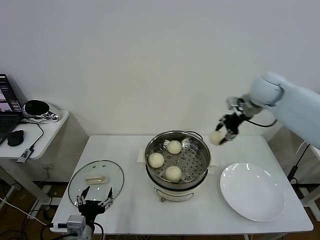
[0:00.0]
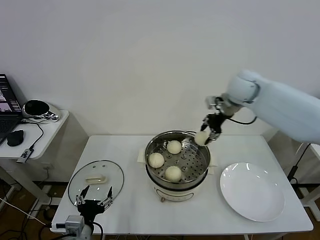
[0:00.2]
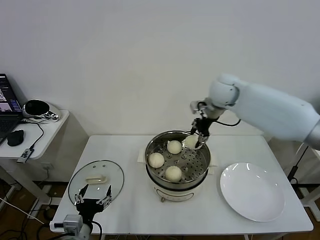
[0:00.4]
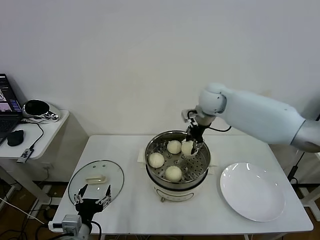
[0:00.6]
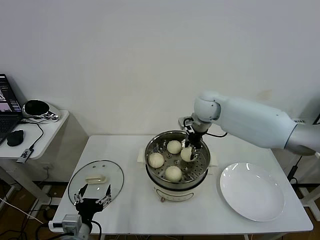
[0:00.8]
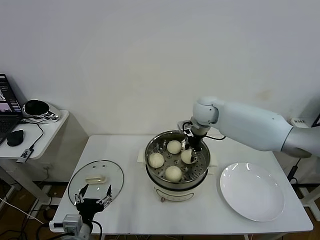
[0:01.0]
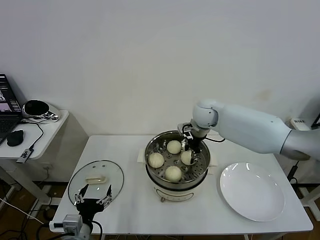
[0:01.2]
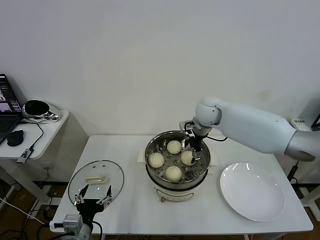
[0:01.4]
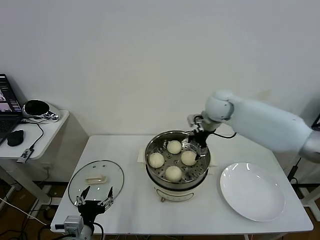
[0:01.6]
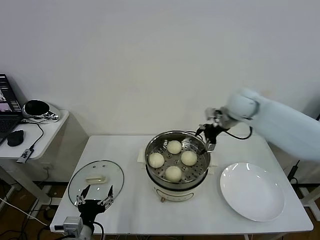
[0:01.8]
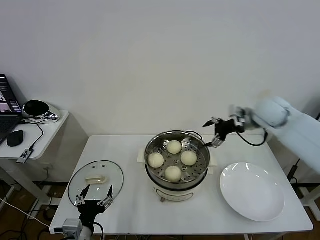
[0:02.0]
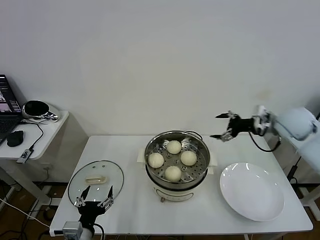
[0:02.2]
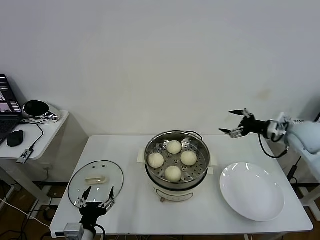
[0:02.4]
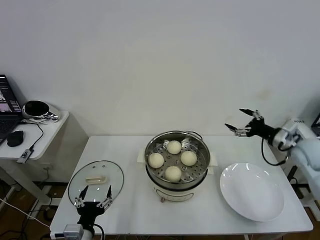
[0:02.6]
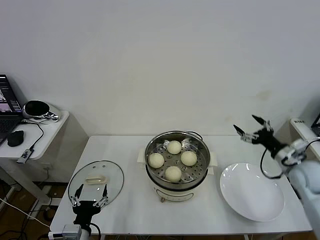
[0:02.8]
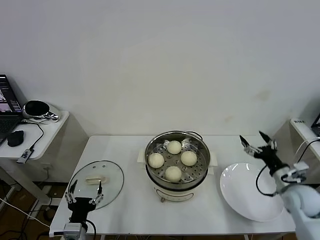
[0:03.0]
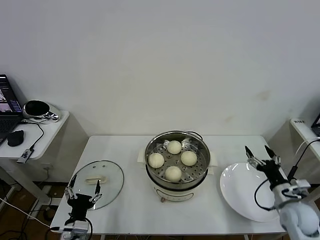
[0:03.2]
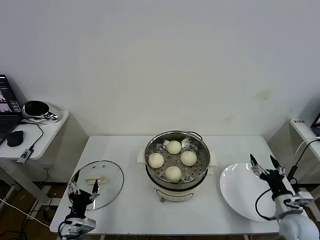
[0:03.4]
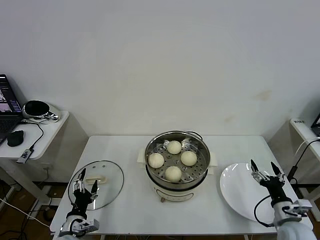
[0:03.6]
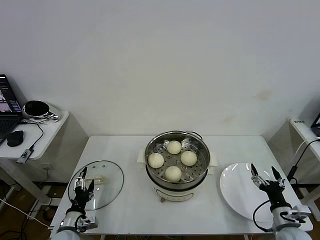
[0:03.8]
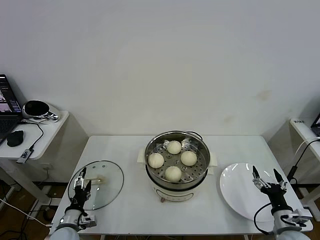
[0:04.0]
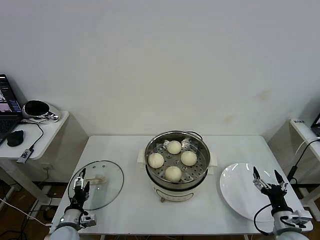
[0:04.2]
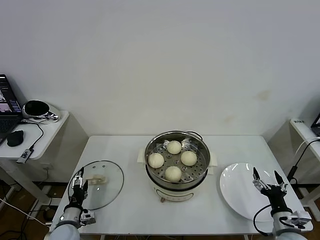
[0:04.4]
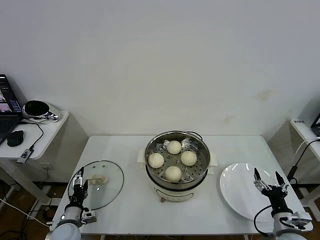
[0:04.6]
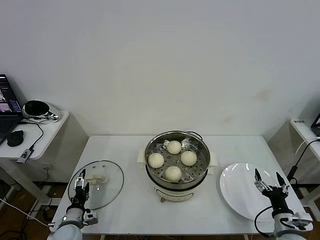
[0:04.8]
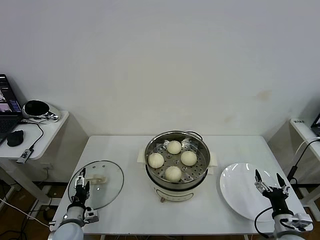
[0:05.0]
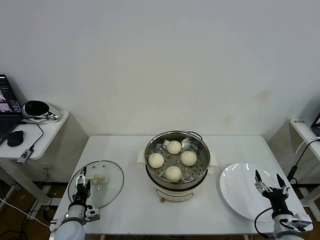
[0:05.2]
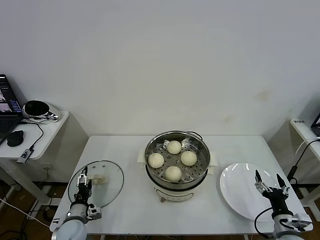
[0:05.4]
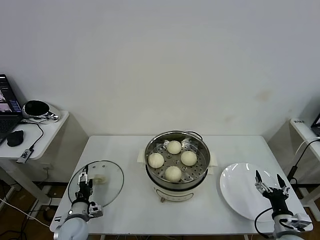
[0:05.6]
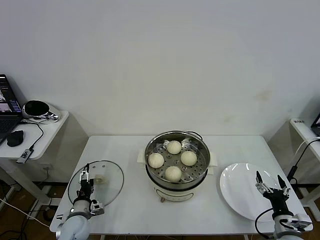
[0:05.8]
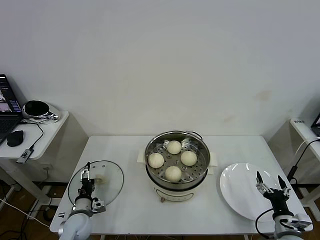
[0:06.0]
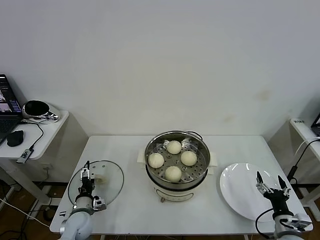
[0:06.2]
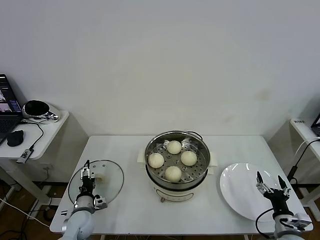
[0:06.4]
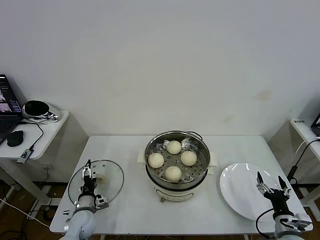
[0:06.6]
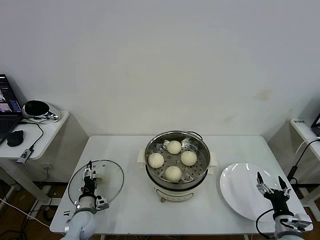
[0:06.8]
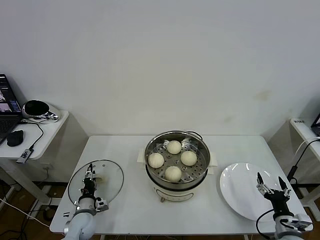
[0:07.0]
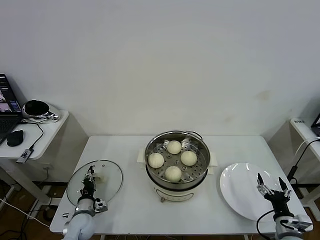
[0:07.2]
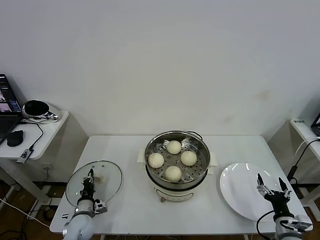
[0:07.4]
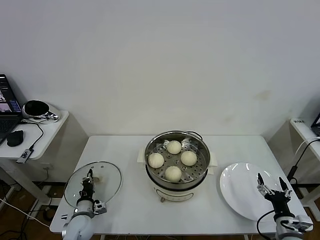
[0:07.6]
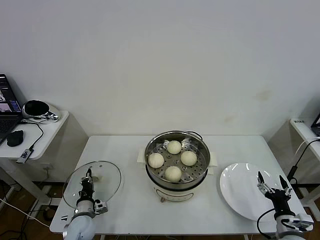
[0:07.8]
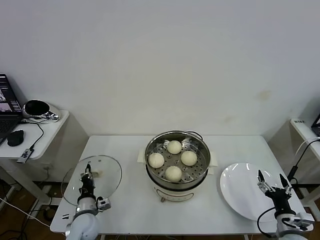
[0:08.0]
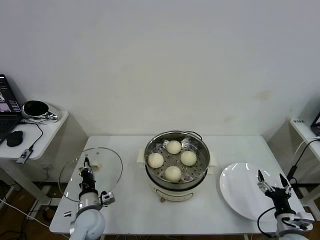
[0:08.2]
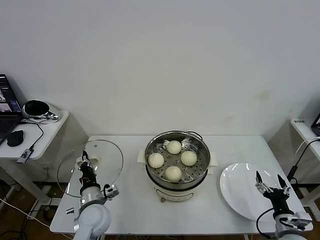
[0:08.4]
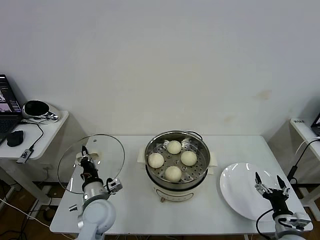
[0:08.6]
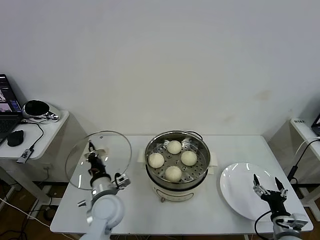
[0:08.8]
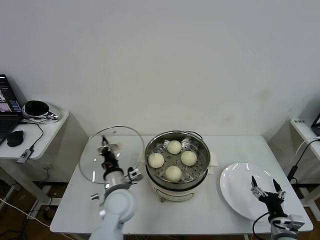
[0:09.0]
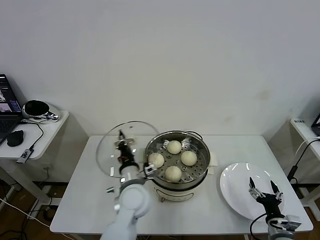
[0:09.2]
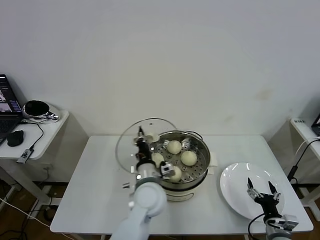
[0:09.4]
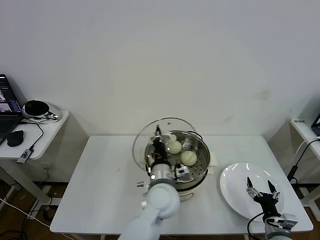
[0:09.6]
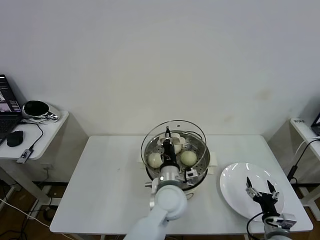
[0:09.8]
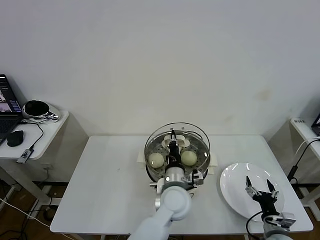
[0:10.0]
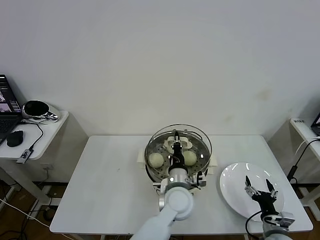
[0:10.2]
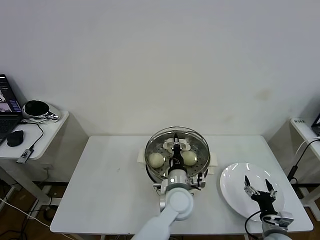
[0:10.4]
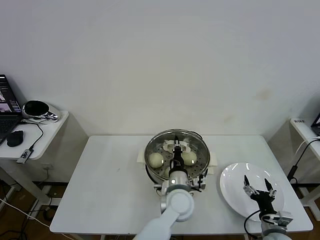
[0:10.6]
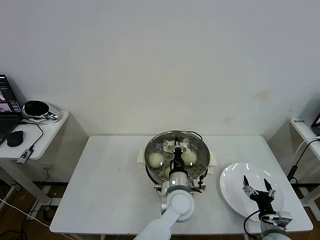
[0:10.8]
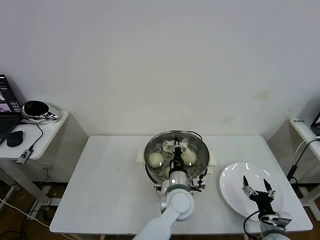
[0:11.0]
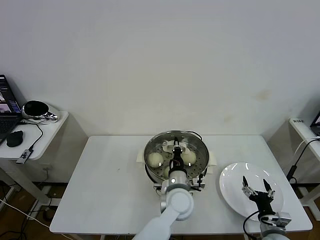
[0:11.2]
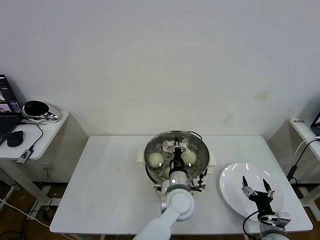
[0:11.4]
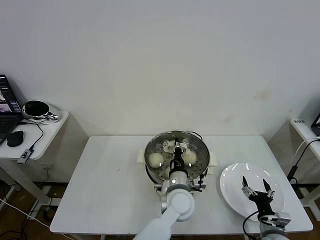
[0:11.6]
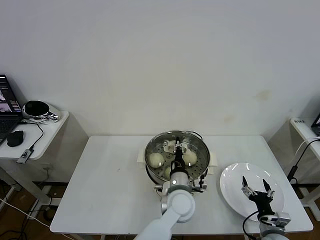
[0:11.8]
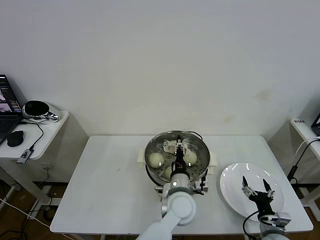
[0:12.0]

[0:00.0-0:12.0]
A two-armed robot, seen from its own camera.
Task of the whole recording: take steamed baozi put them in steamer then cover it.
Step, 0:00.0 to 0:01.4: Place the baozi on the steamer with right gripper.
Step, 0:01.6 to 0:07.4: Grasp the pot lid with left gripper.
0:00.0 to 0:01.6: The right gripper goes roughly 15 cm to the left and downward, and opens its fingers.
0:01.6 to 0:03.0: The right gripper heads to the right, backward and downward, covering approximately 40 cm.
0:03.0 to 0:04.4: The left gripper moves forward, downward and to the left, roughly 15 cm. Meanwhile the right gripper moves backward and downward, roughly 15 cm.
0:04.4 to 0:06.0: The left gripper shifts by about 5 cm.
0:06.0 to 0:07.6: The left gripper closes up.
0:07.6 to 0:09.0: The left gripper moves upward and to the right, roughly 25 cm.
0:09.0 to 0:10.4: The left gripper goes some 20 cm to the right.
0:10.4 to 0:12.0: The left gripper opens its fingers.

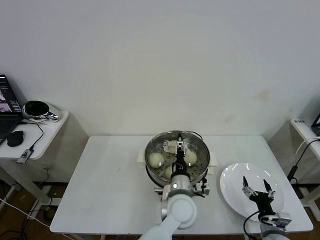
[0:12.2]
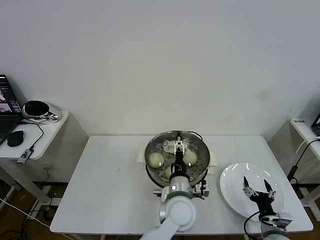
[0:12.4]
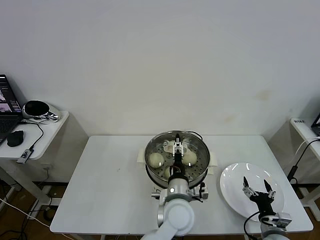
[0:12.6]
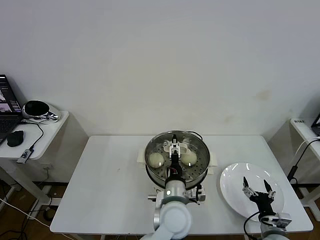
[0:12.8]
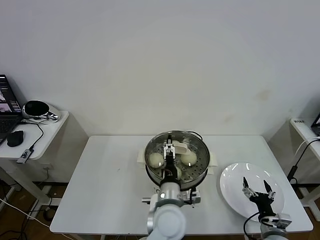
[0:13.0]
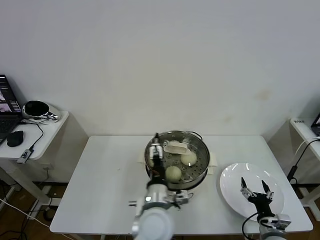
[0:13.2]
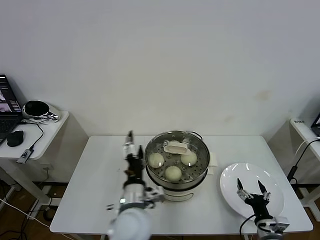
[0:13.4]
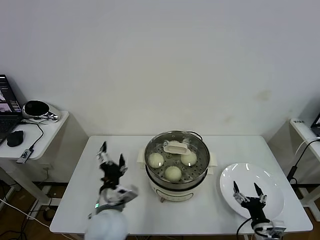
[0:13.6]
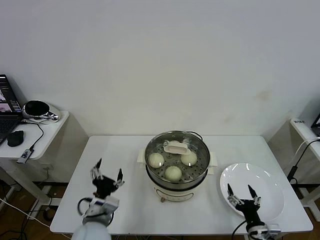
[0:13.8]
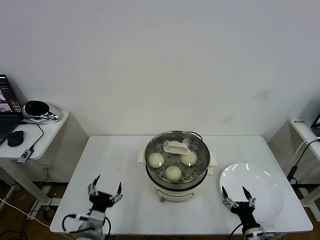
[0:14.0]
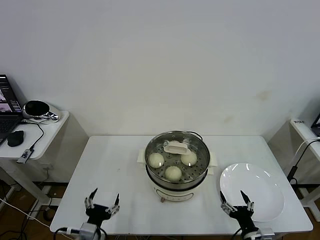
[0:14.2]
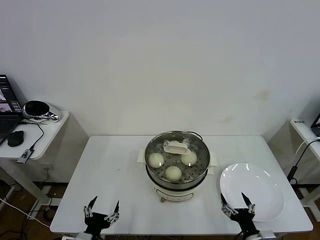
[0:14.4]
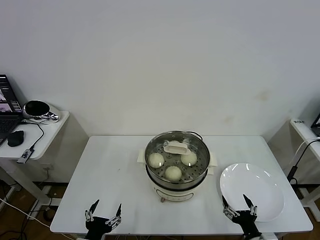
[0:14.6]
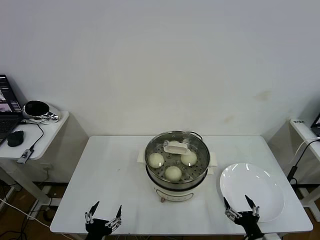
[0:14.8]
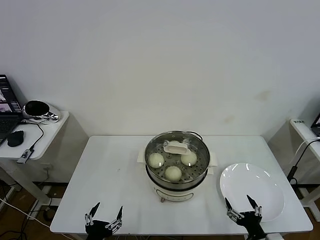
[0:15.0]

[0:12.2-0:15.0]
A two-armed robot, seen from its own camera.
Task of the whole recording: take steamed baozi put them in steamer then cover it.
0:12.2 to 0:13.6: The left gripper heads to the left, covering some 15 cm.
0:13.6 to 0:15.0: The left gripper heads backward, to the left and downward, covering approximately 20 cm; the right gripper shifts some 5 cm backward.
